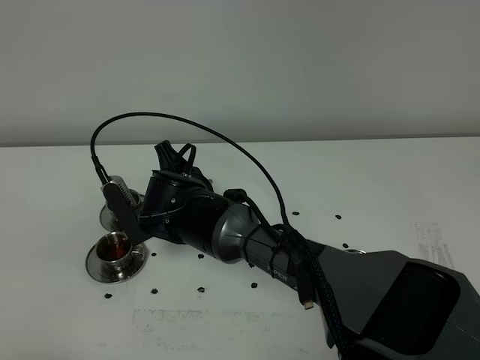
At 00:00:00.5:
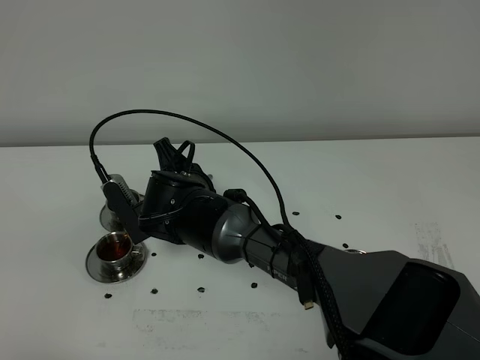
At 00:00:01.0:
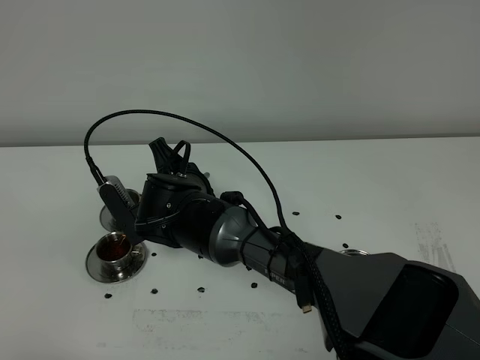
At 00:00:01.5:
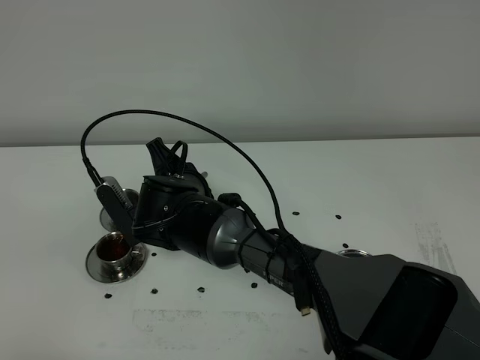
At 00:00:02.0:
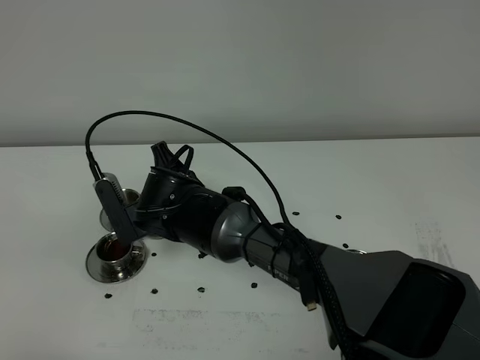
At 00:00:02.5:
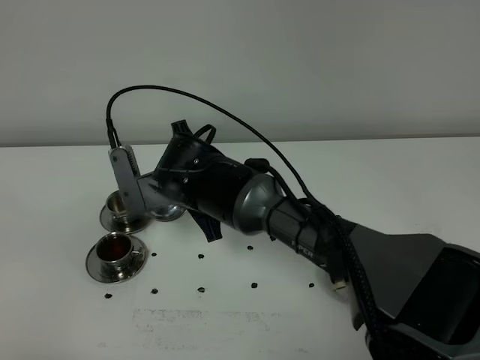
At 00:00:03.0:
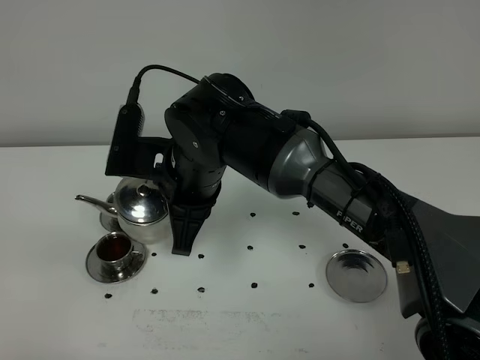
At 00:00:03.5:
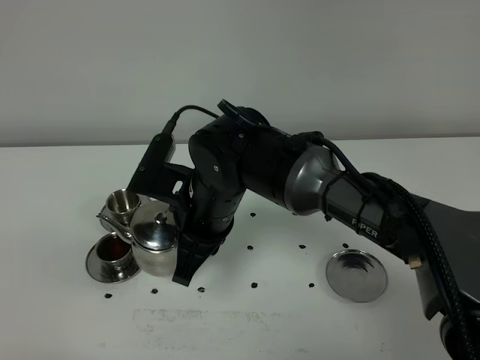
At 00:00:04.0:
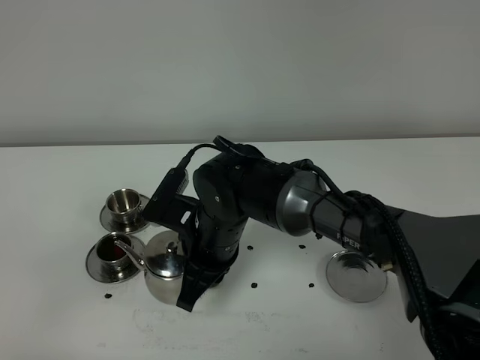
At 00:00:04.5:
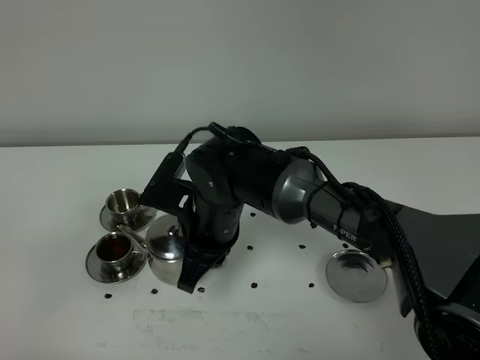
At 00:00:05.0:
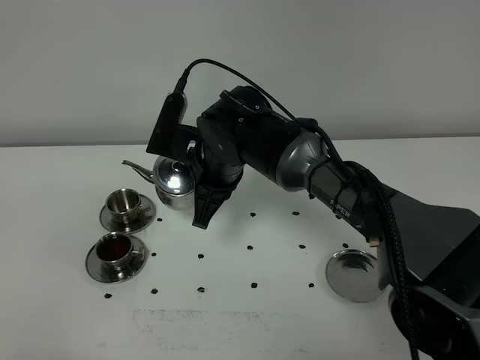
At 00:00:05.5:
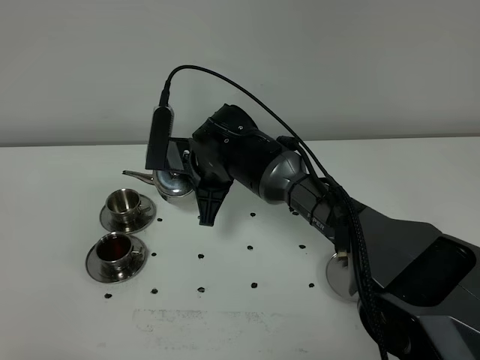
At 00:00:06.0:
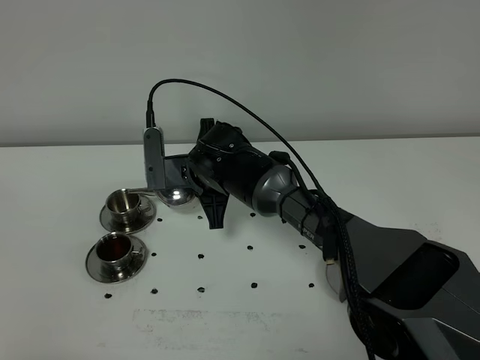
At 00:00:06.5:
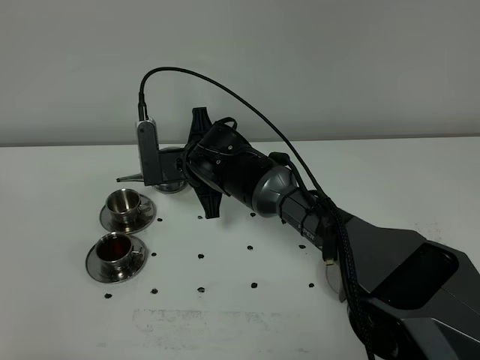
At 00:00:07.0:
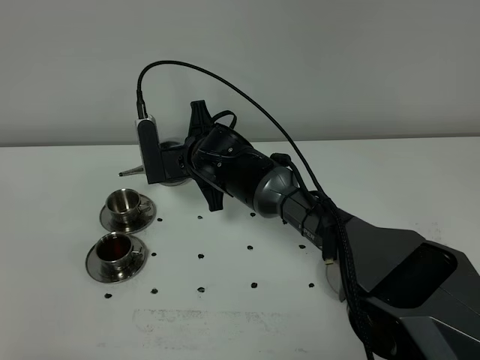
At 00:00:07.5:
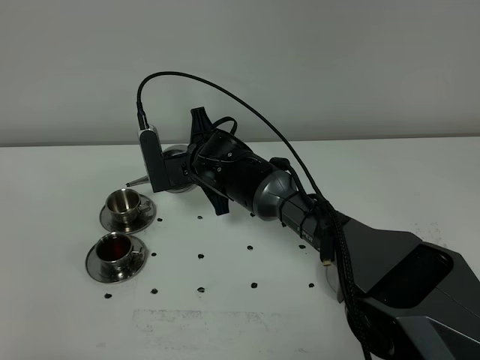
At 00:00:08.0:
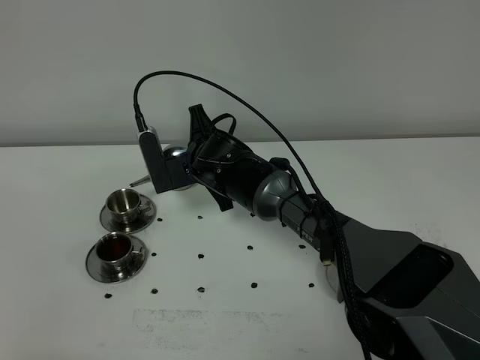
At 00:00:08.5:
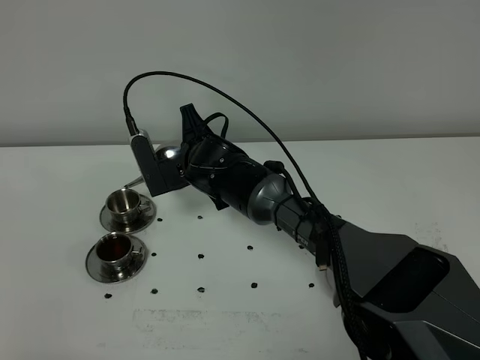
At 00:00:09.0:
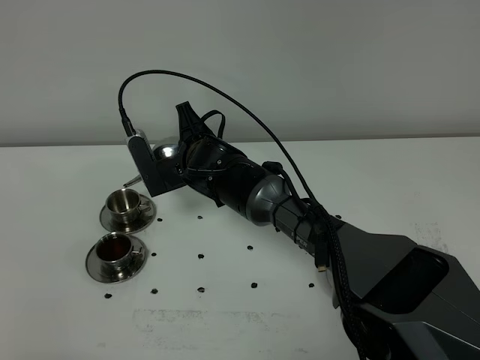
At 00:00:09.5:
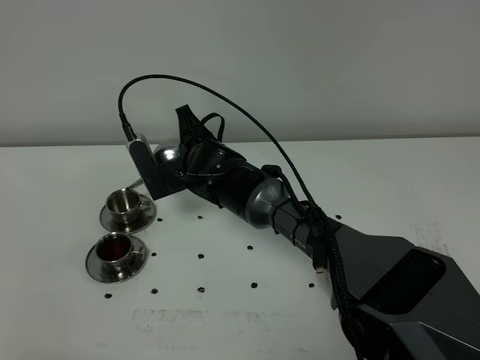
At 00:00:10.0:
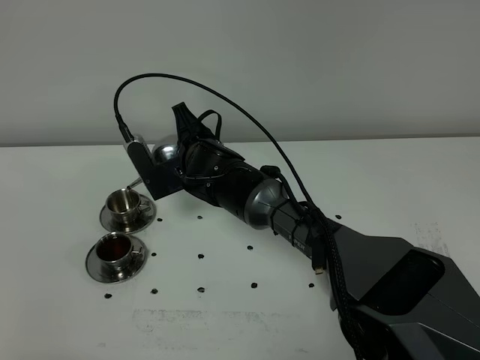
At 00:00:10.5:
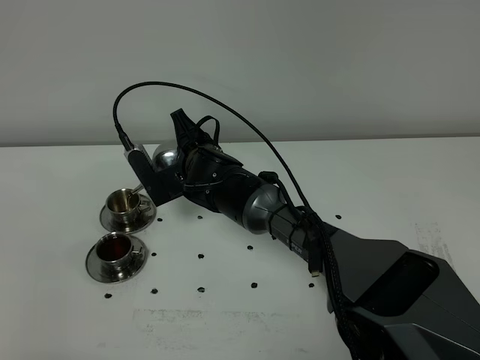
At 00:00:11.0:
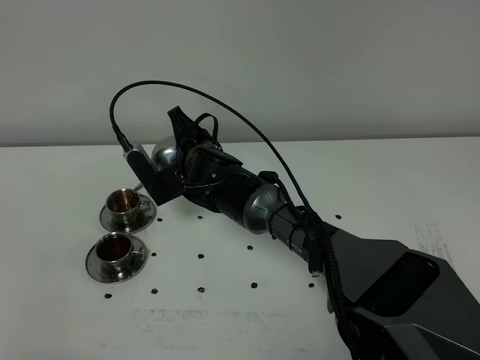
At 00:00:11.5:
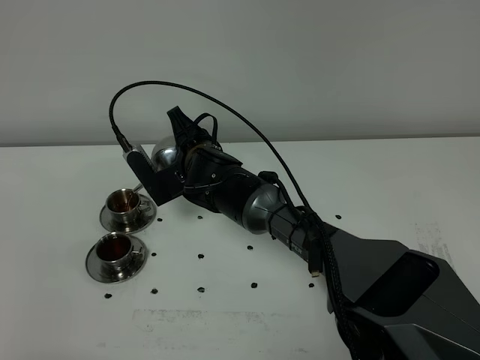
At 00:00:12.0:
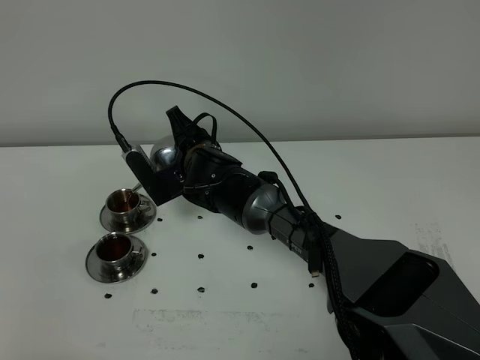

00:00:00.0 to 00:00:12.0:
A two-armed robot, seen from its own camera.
Task of the whole recording: grasp the stainless steel teapot and pour the tea into the two stainless steel teacups one by one, put the stainless steel teapot back in its original place.
00:00:00.0 to 00:00:02.0: The grippers make only small movements.
00:00:02.0 to 00:00:04.0: The right gripper heads to the right, covering roughly 5 cm, and travels upward and back again, approximately 10 cm each way.
00:00:04.0 to 00:00:06.0: The right gripper moves forward, roughly 10 cm.
00:00:06.0 to 00:00:08.0: The grippers move only a little.
00:00:08.0 to 00:00:12.0: The grippers stay close to where they were, moving slightly.

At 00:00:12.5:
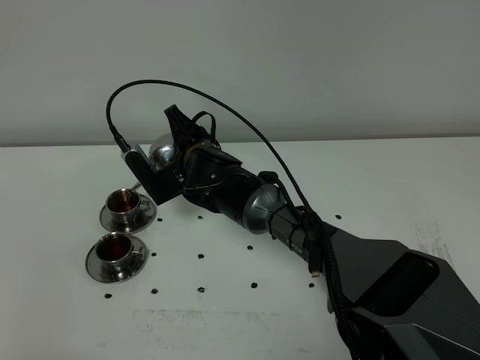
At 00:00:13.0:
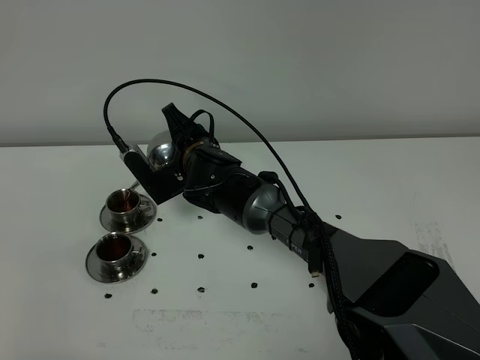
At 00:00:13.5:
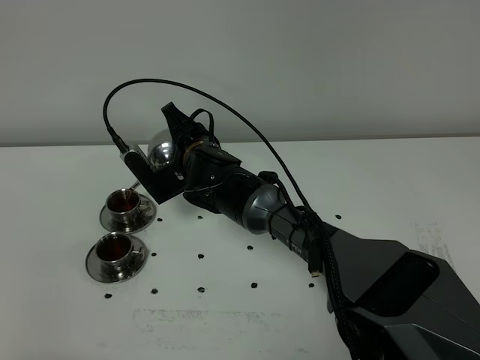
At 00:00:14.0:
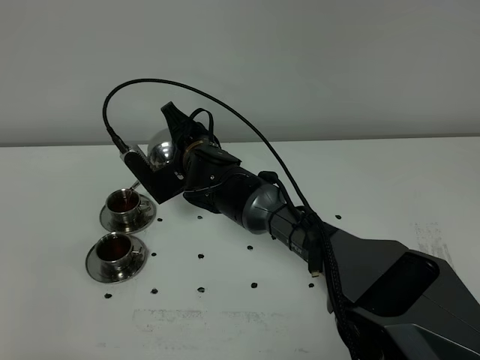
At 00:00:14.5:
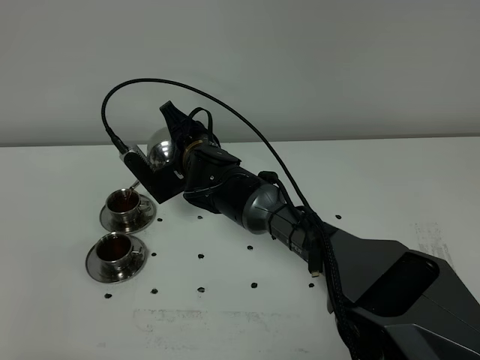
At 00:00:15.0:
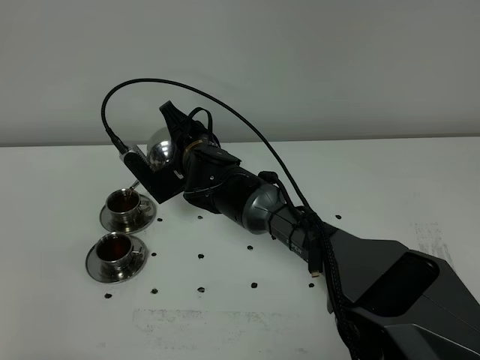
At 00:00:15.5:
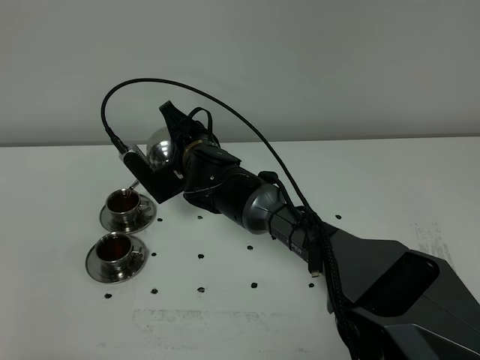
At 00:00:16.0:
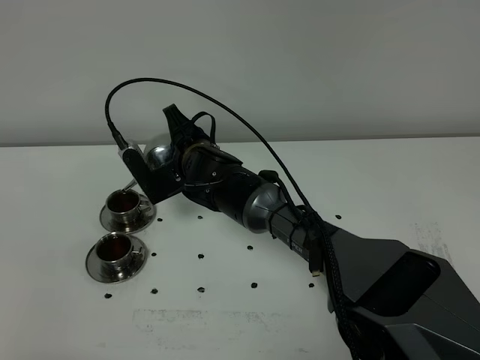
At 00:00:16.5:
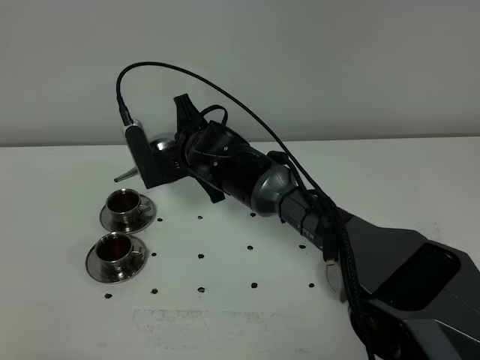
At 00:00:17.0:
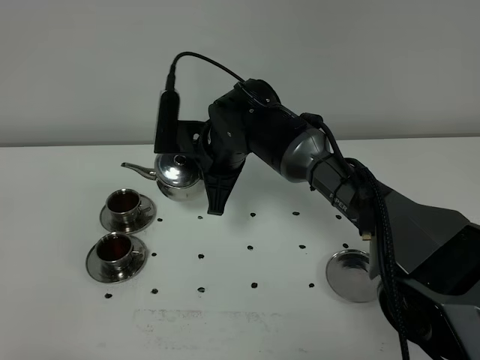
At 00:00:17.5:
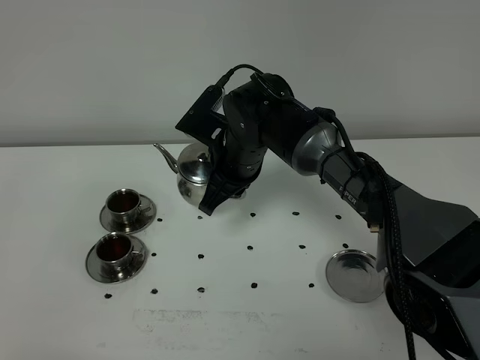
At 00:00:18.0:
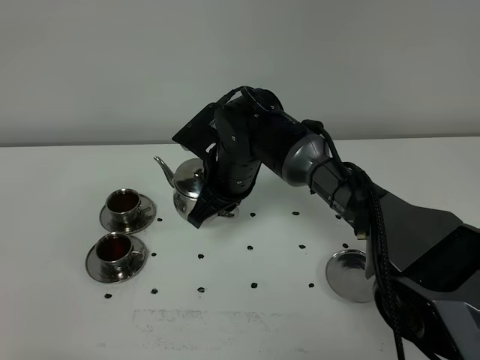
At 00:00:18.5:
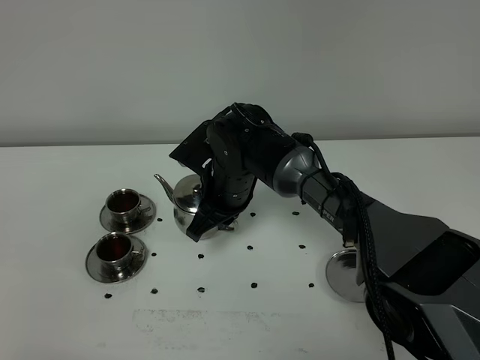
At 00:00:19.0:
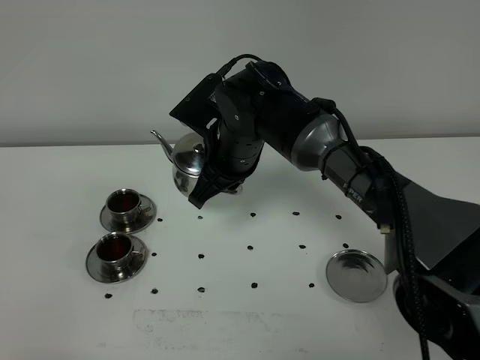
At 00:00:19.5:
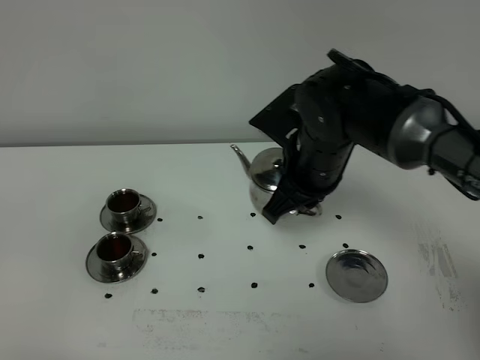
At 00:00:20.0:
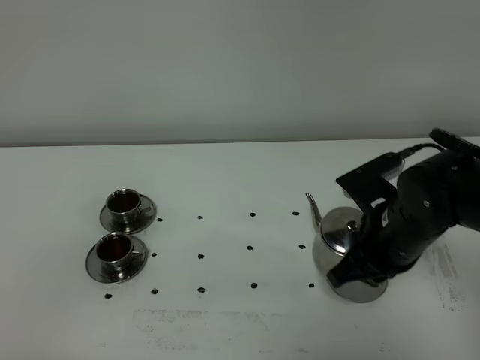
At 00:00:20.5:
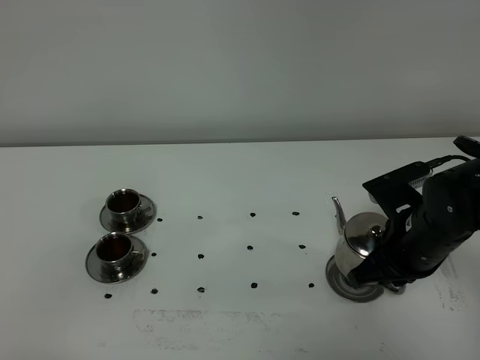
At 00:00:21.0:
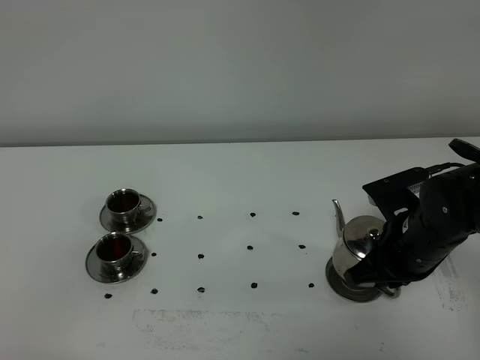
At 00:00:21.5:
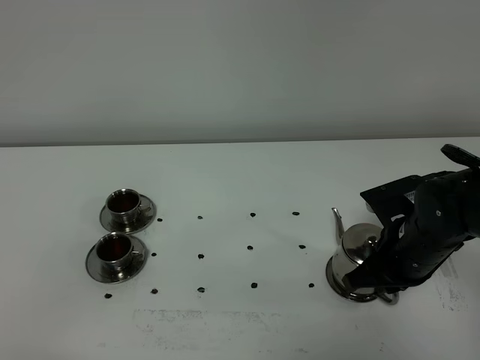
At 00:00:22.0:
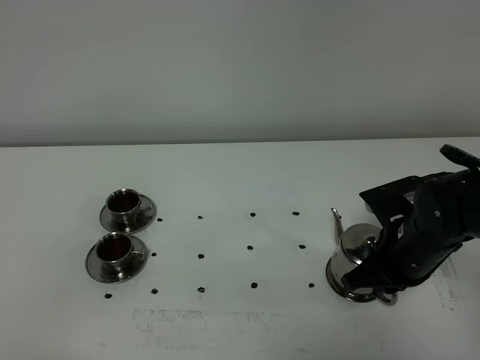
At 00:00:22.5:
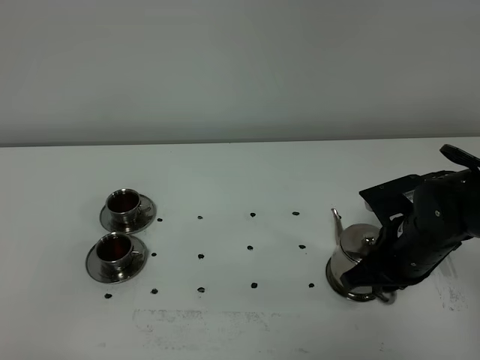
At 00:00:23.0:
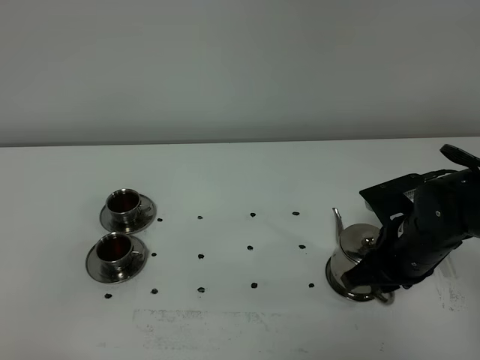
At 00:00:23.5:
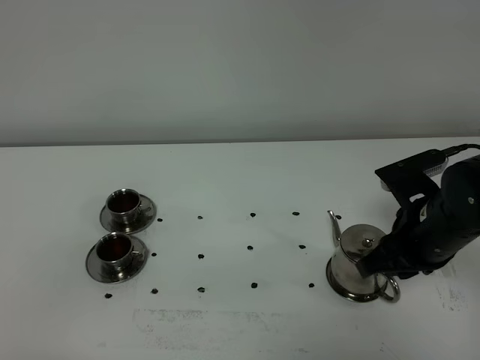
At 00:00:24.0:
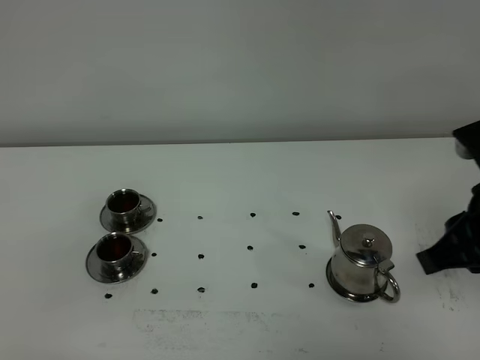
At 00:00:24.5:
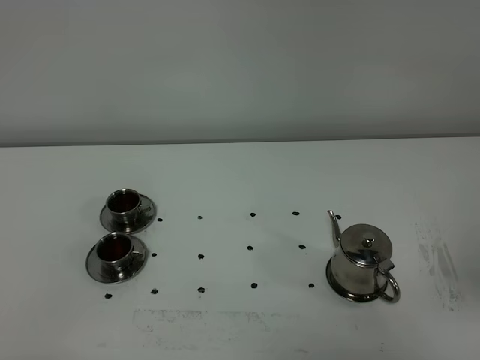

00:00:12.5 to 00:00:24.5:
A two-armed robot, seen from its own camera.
Task of the whole recording: grasp the stainless steel teapot and pour the tea into the two stainless steel teacups one by one, put the stainless steel teapot back in its original place.
00:00:12.5 to 00:00:14.5: Both grippers stay put.
00:00:18.5 to 00:00:20.5: The right gripper moves to the right and backward, some 25 cm.
00:00:20.5 to 00:00:22.5: There are only small adjustments of the grippers.
00:00:22.5 to 00:00:24.5: The right gripper is displaced upward and backward by approximately 30 cm.

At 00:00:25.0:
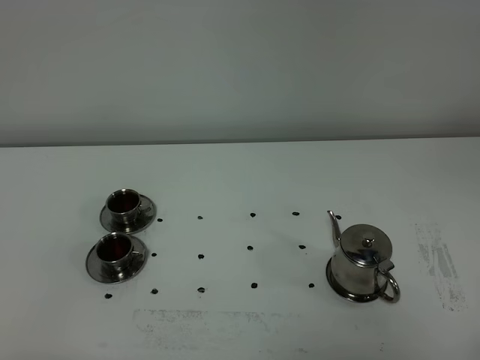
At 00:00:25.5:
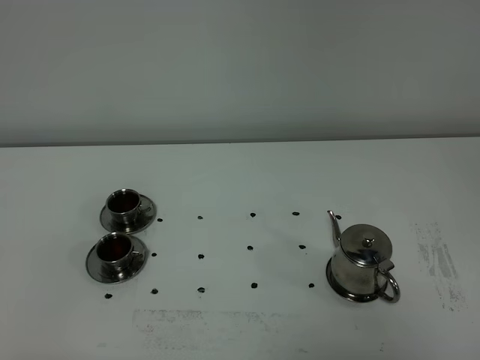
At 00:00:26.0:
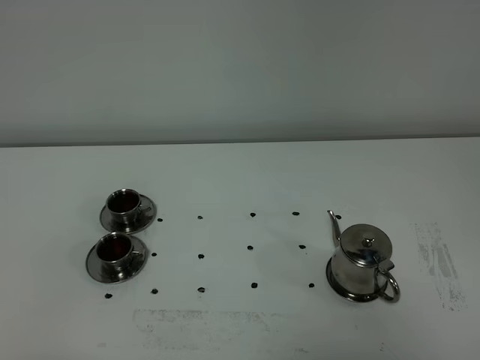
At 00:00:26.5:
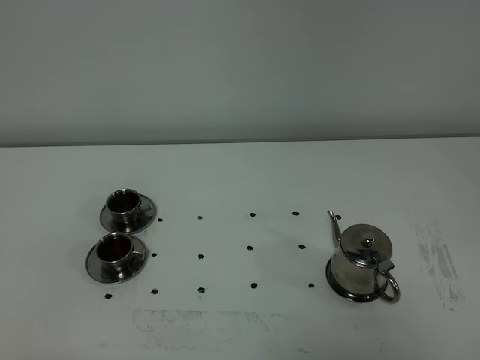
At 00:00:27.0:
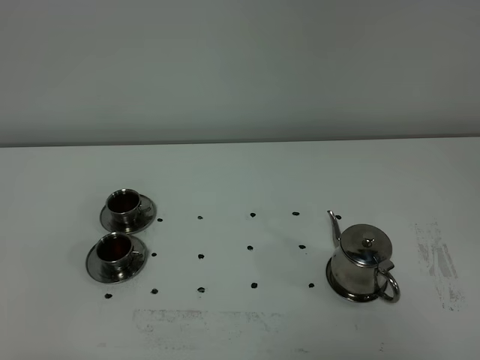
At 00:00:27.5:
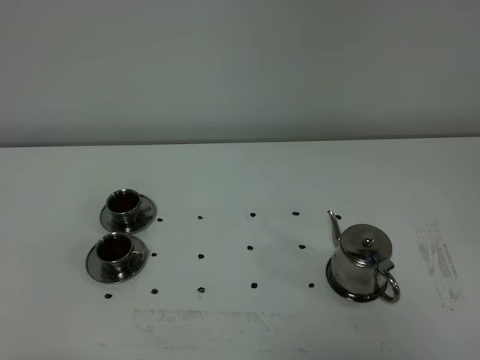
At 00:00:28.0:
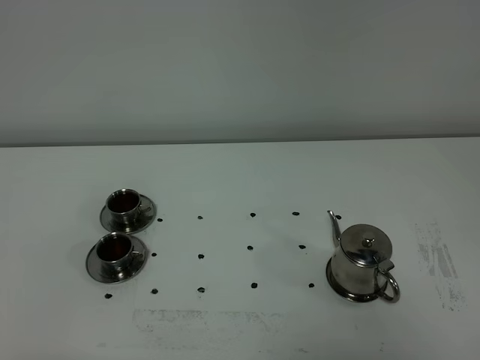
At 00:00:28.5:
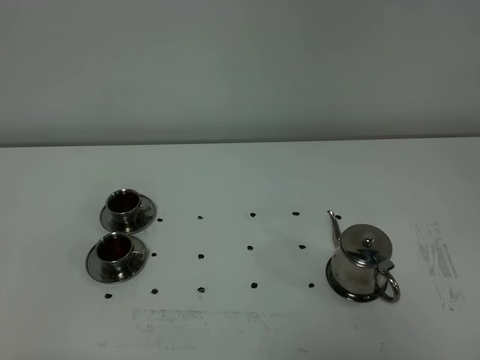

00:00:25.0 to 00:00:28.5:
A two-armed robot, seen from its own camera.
Task of the whole recording: grasp the stainless steel teapot and pour the tea into the two stainless steel teacups one by one, put the stainless steel teapot back in its original place.
00:00:27.0 to 00:00:28.5: The two grippers keep their place.
